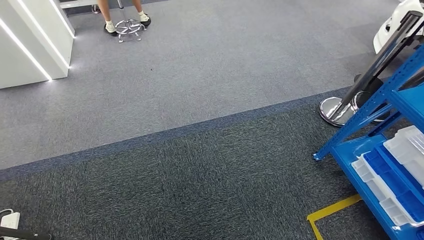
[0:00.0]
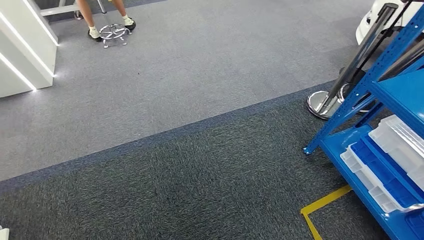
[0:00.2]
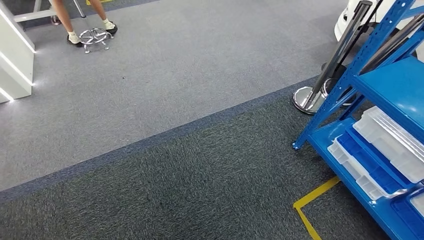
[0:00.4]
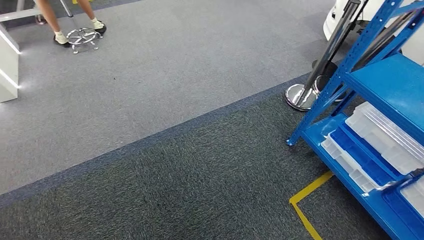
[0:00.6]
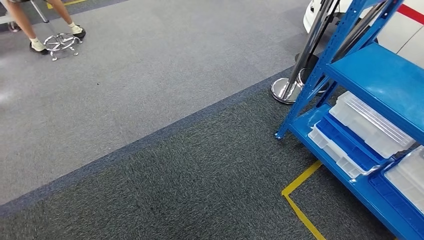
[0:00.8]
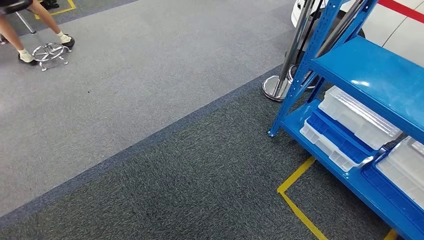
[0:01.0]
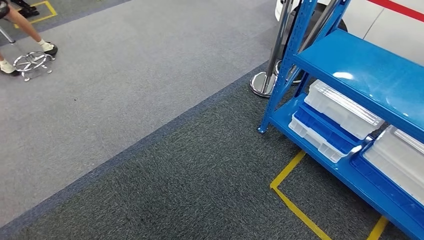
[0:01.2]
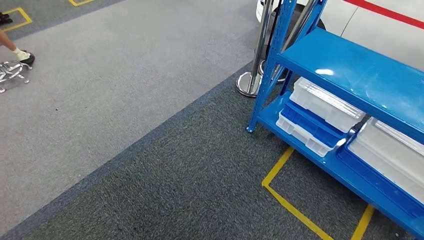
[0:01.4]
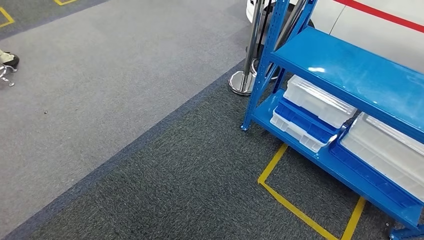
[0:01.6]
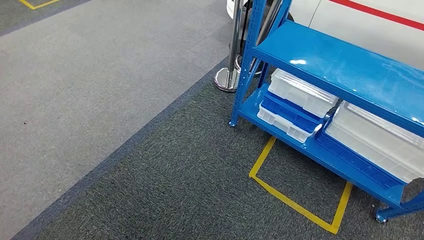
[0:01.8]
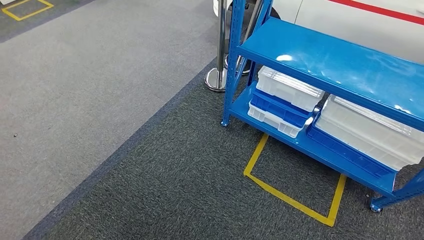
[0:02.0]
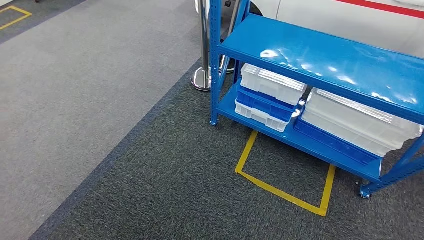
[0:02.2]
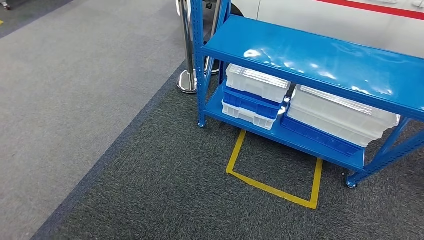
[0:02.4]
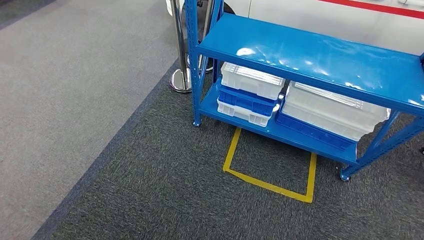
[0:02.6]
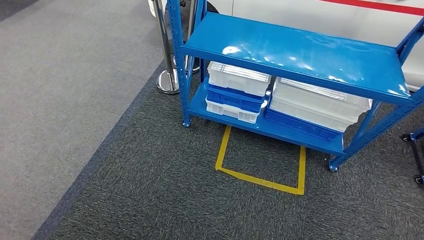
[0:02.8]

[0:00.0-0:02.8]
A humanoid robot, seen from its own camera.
Step, 0:00.0 to 0:02.8: Move to the initial position of the shelf.

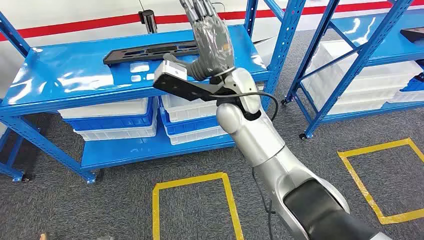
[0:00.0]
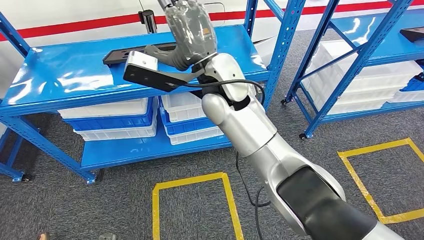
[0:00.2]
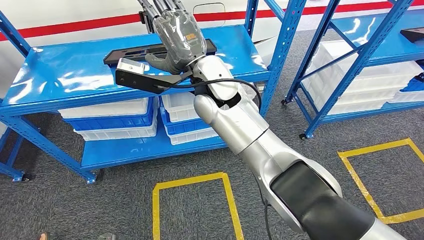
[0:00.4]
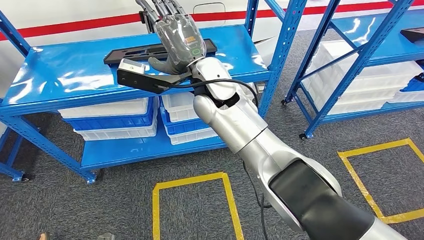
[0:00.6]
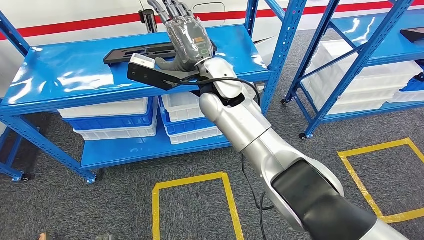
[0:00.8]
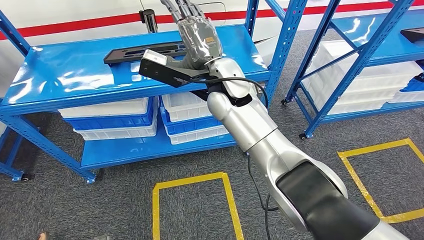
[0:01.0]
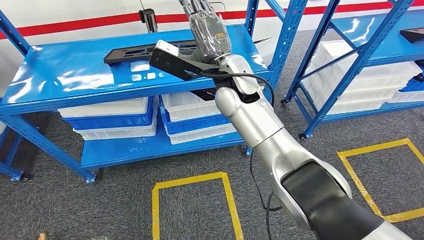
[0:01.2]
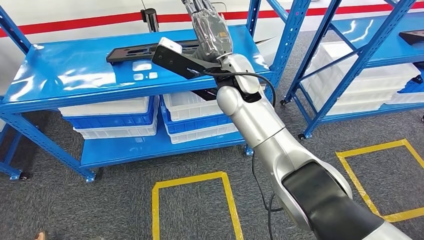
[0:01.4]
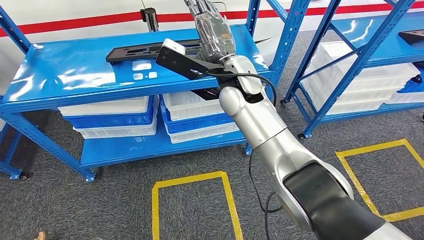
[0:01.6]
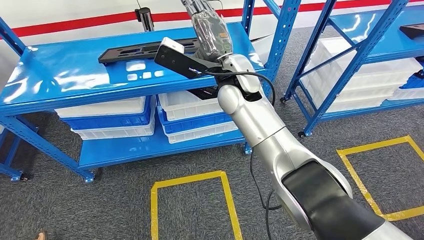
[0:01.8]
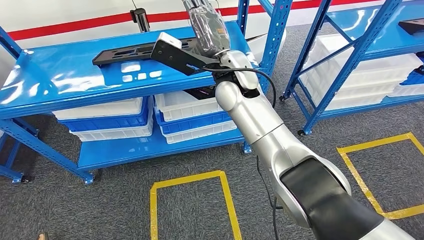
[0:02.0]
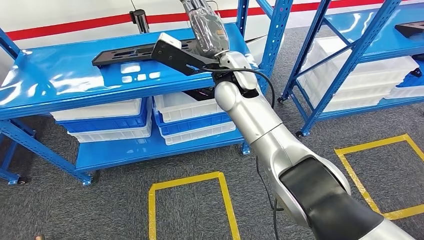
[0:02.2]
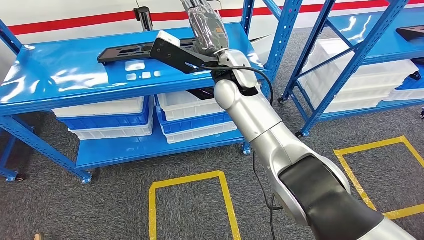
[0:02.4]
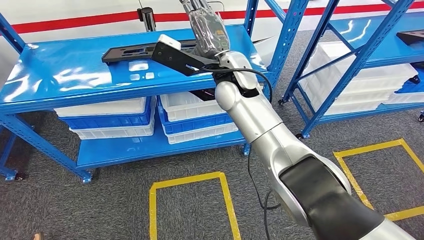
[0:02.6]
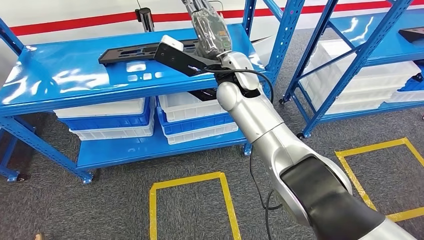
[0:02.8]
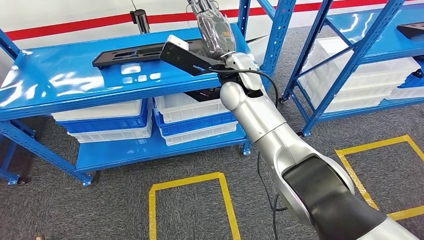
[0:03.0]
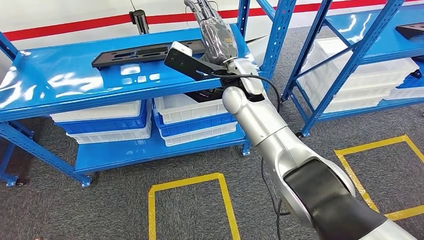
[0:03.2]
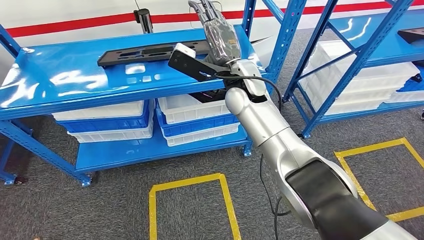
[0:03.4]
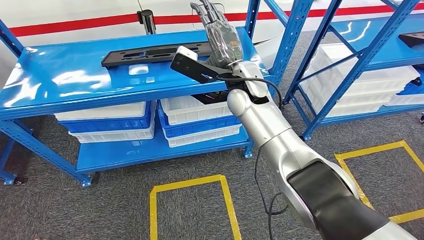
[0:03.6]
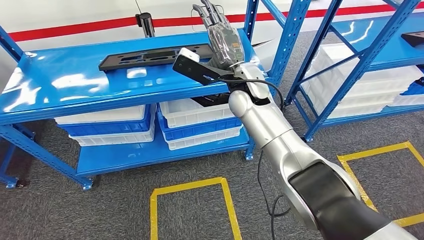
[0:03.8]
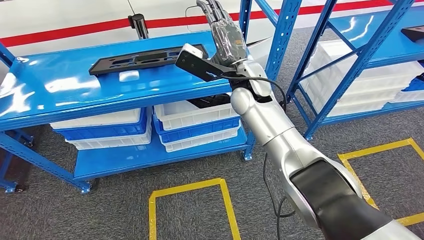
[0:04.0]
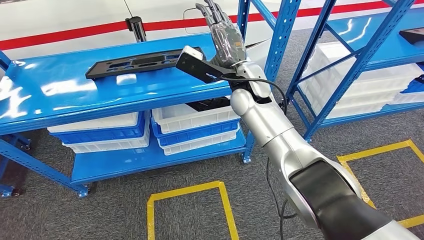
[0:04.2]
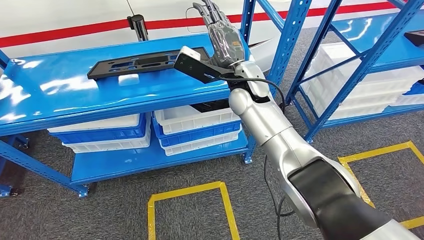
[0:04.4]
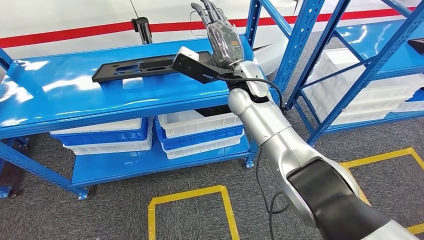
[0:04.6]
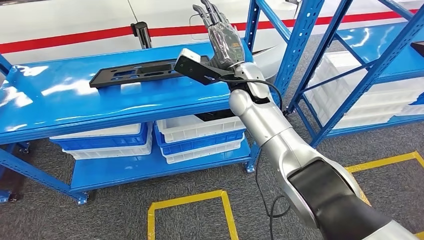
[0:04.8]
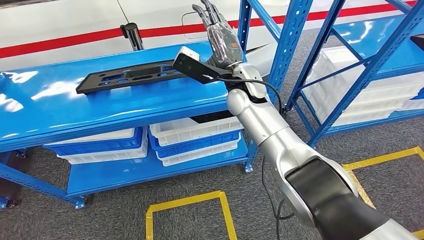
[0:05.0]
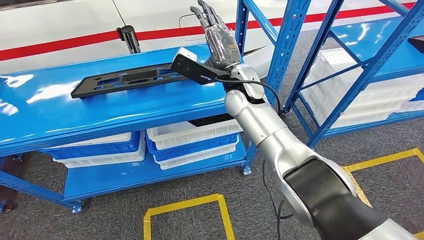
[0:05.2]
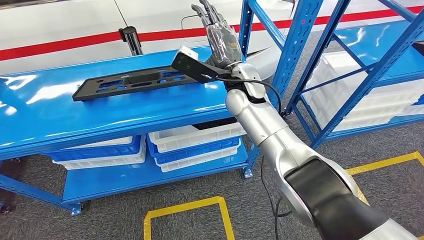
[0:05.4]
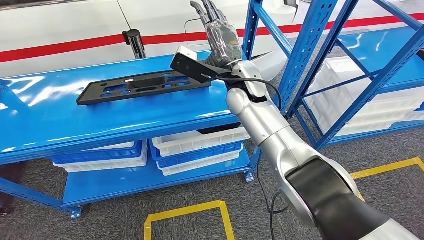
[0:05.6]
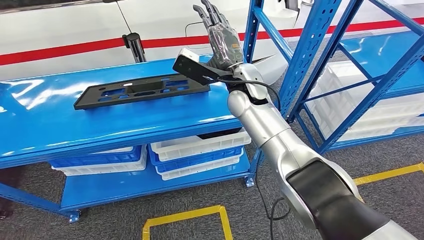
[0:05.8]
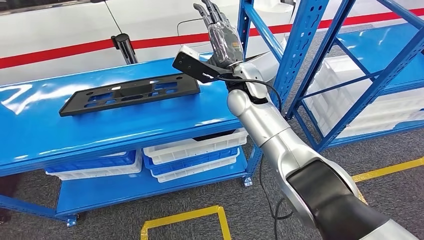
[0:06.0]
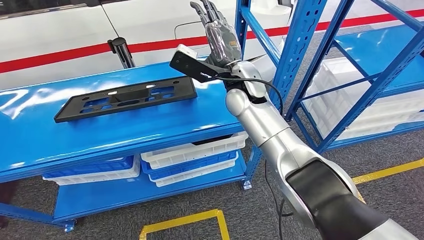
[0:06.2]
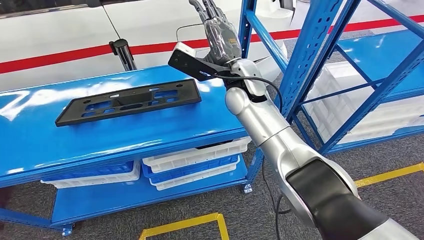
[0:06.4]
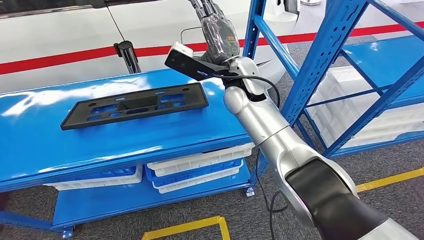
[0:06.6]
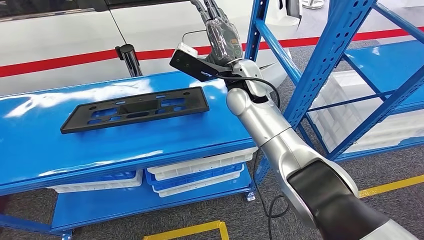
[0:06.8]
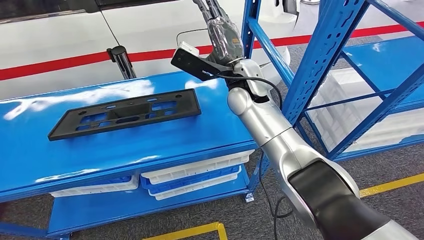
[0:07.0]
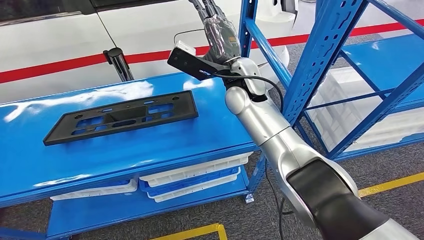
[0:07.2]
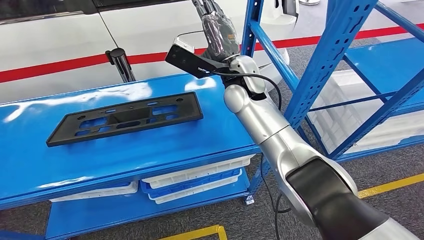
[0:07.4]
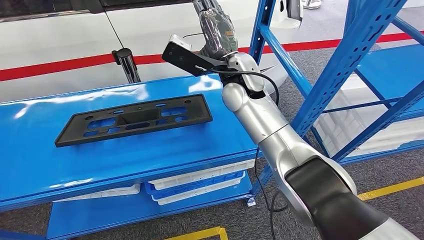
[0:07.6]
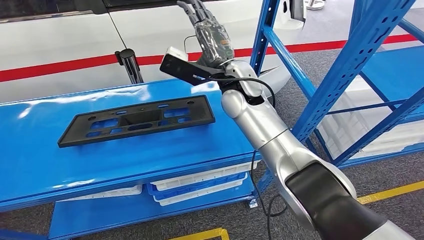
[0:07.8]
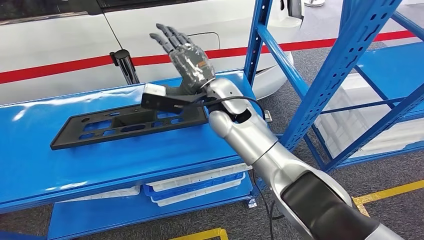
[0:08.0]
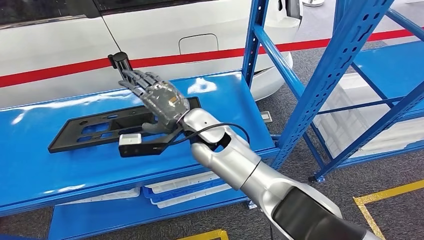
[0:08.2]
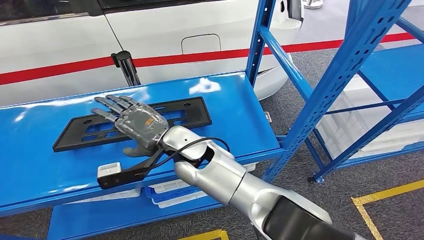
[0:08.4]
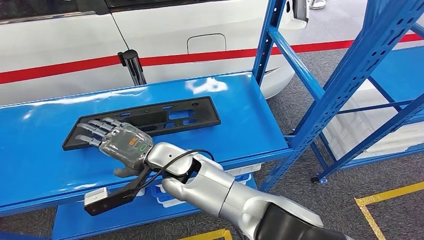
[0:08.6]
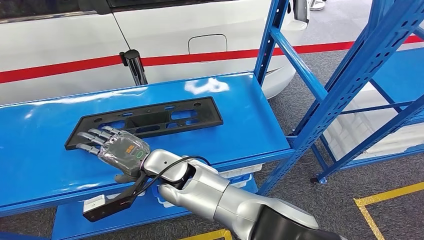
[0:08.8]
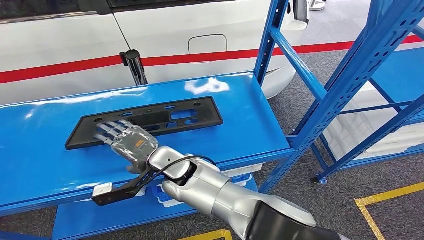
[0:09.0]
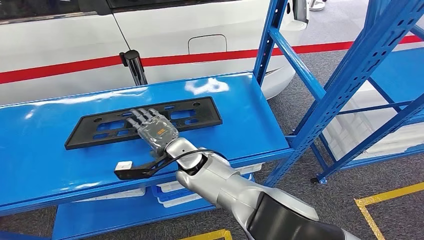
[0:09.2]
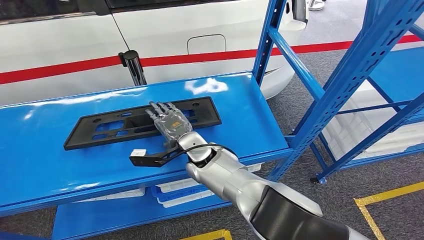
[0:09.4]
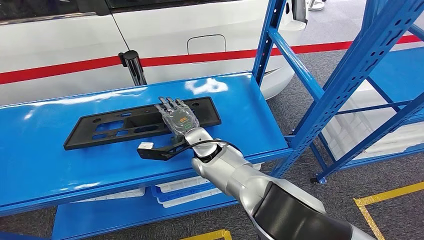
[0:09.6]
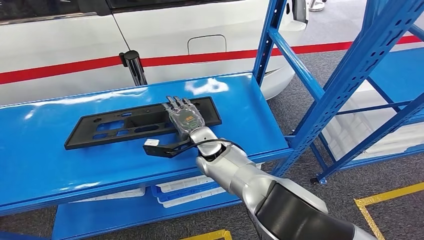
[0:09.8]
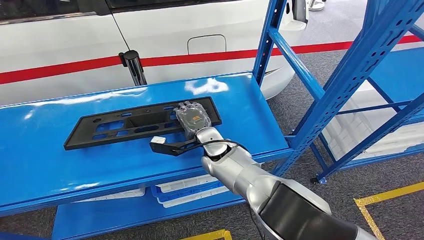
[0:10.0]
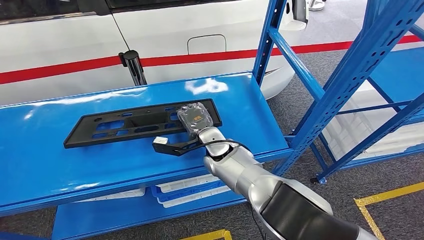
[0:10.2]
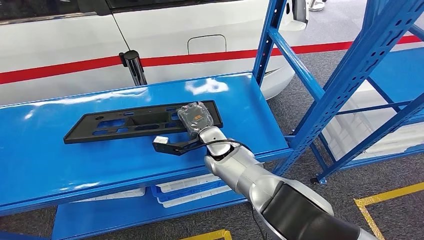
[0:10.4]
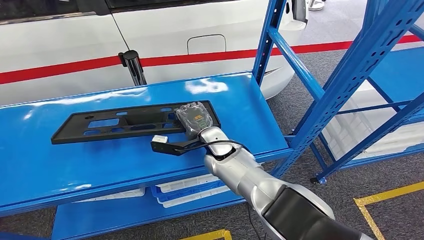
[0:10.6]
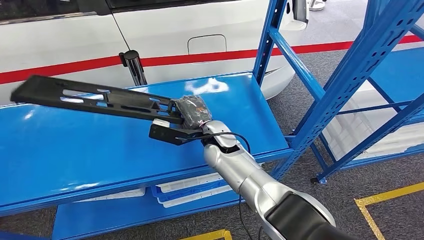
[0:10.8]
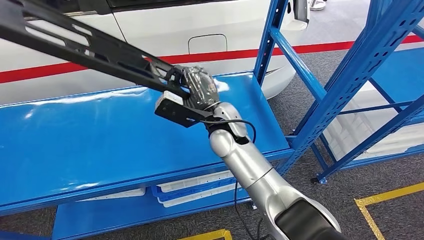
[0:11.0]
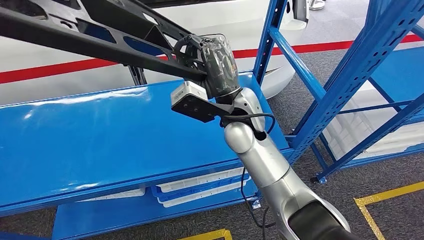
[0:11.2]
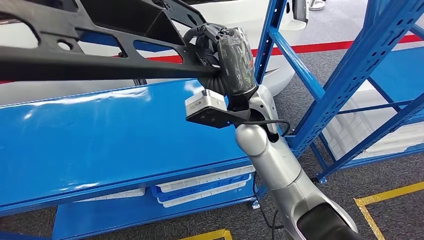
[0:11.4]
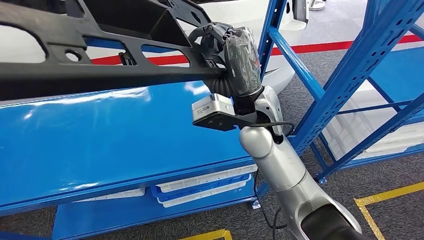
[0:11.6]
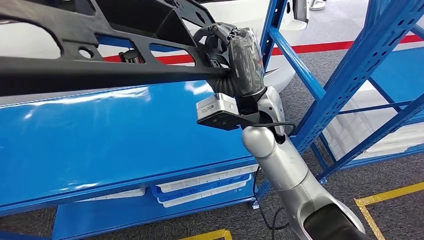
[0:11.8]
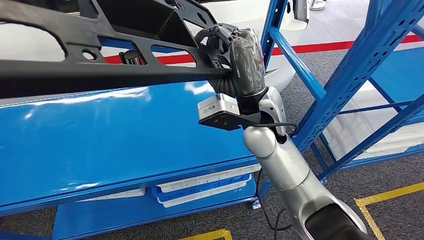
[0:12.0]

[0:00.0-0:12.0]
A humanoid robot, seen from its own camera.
0:09.0 to 0:10.4: The right hand heads to the right and forward, covering roughly 15 cm.

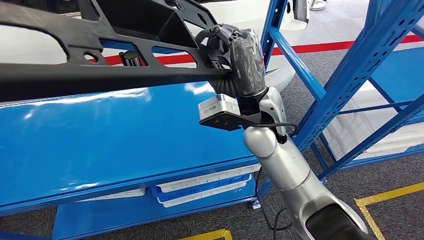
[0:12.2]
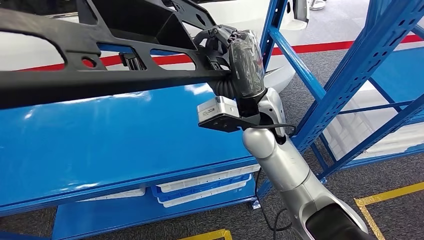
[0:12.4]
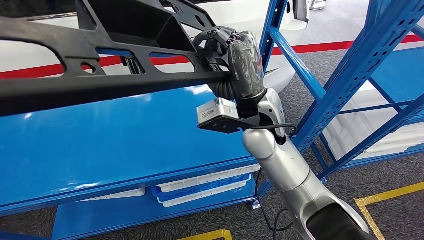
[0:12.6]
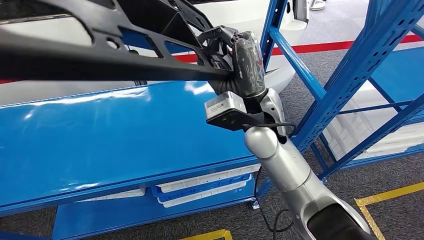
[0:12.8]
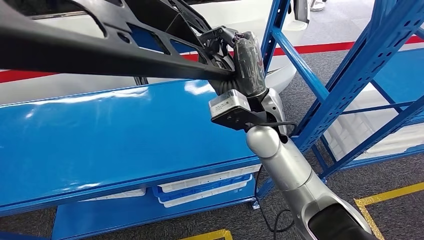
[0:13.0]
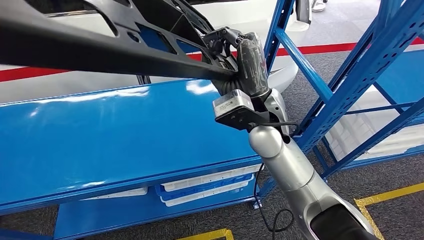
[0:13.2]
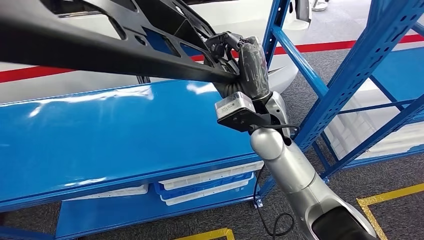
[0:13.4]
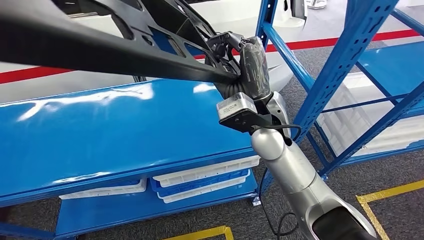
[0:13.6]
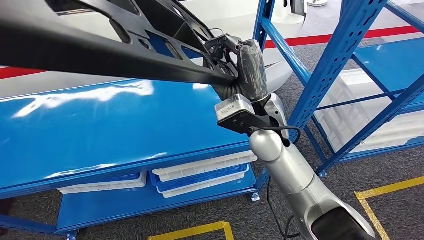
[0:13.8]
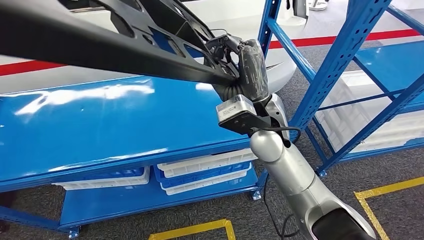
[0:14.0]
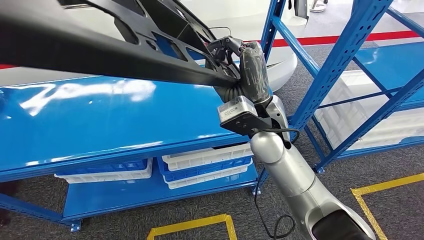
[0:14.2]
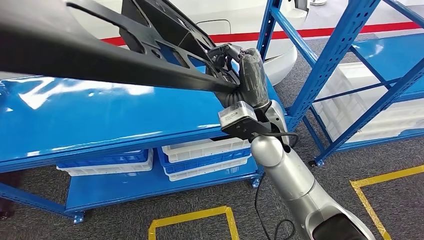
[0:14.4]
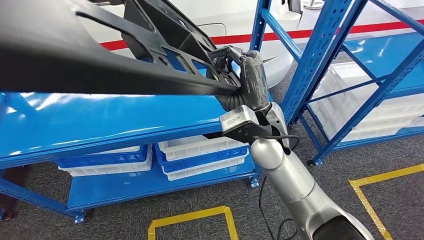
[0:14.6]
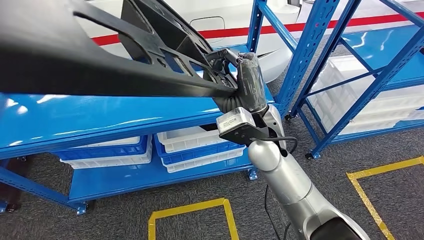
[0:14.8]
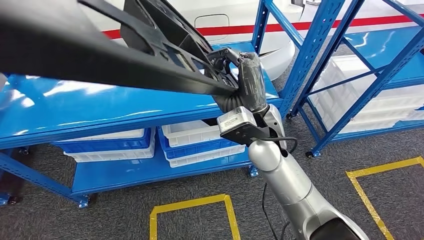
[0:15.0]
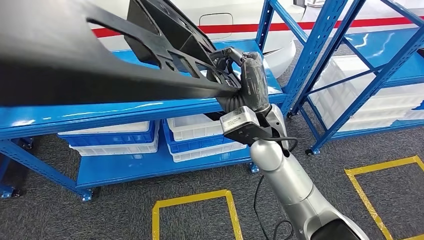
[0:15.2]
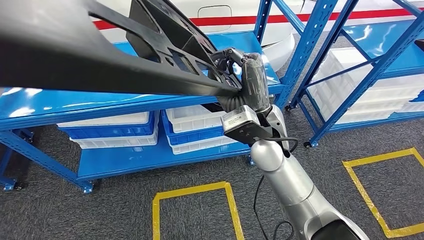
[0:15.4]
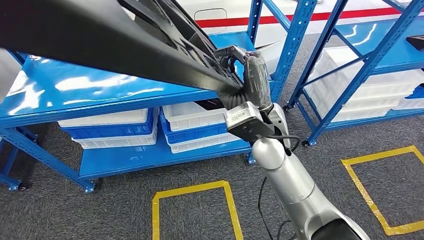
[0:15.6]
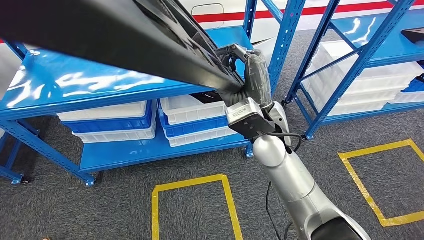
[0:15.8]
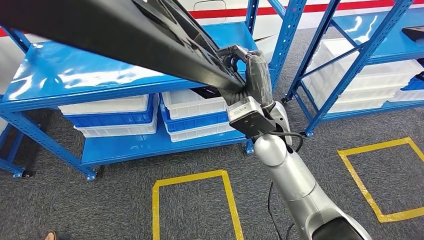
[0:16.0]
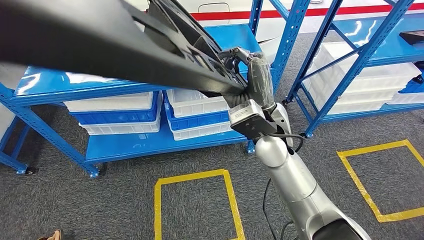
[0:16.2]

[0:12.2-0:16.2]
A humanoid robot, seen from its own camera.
Step, 0:12.2 to 0:14.2: Pick up the large material from the shelf.
